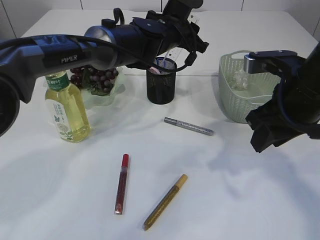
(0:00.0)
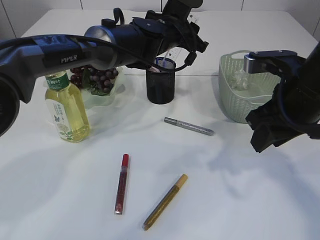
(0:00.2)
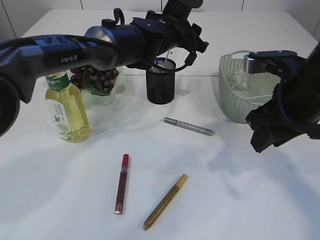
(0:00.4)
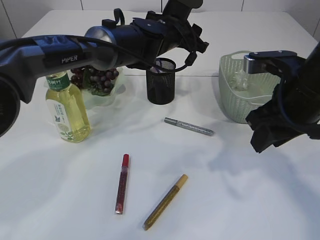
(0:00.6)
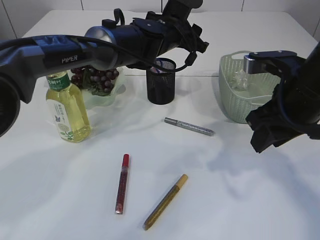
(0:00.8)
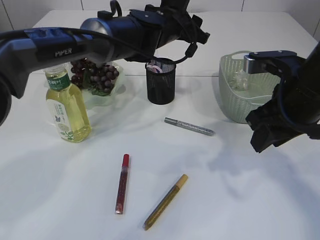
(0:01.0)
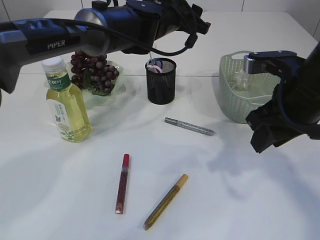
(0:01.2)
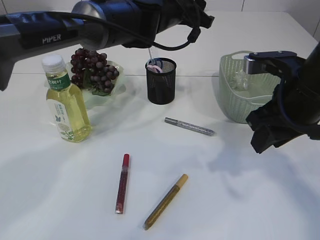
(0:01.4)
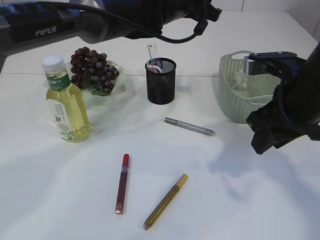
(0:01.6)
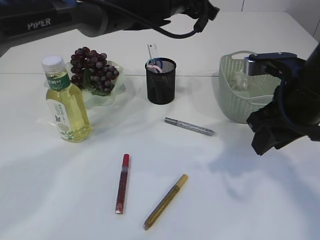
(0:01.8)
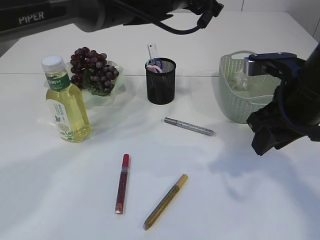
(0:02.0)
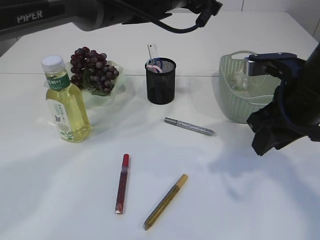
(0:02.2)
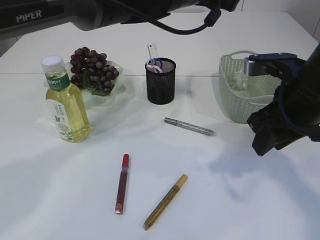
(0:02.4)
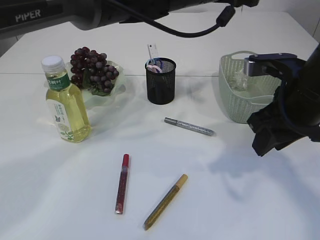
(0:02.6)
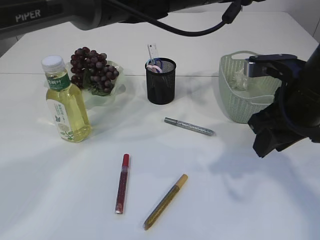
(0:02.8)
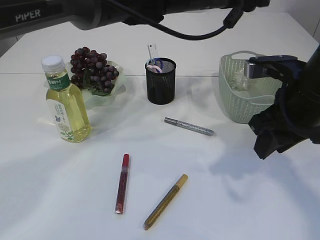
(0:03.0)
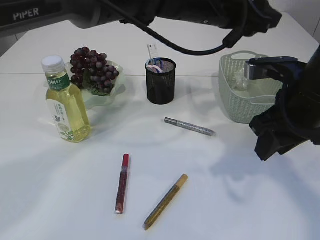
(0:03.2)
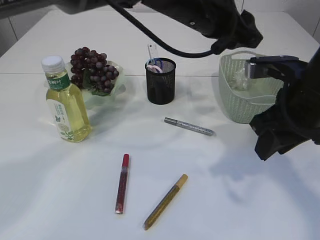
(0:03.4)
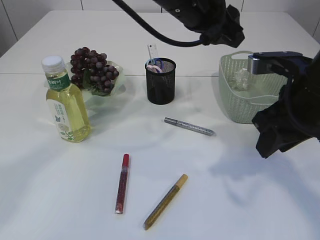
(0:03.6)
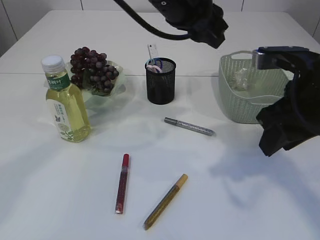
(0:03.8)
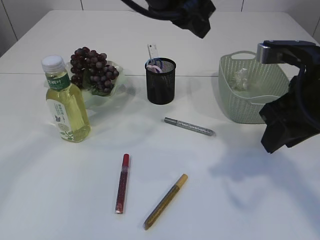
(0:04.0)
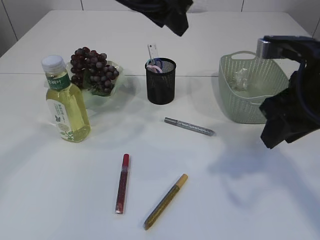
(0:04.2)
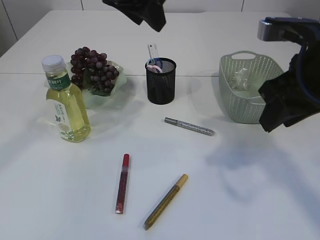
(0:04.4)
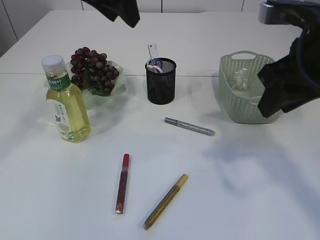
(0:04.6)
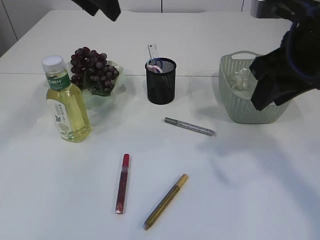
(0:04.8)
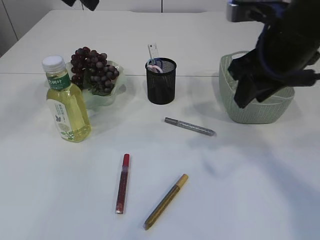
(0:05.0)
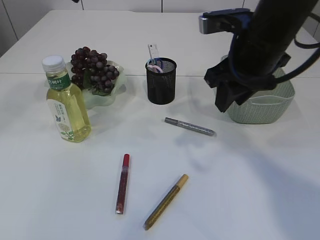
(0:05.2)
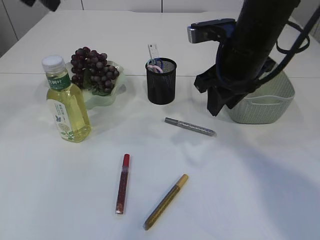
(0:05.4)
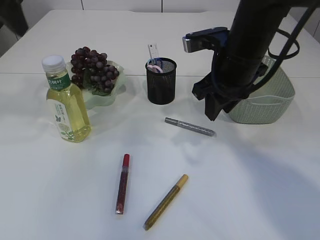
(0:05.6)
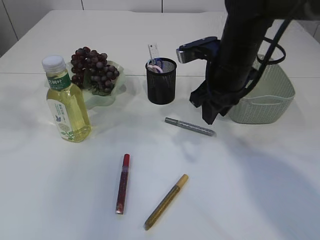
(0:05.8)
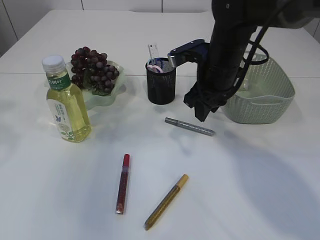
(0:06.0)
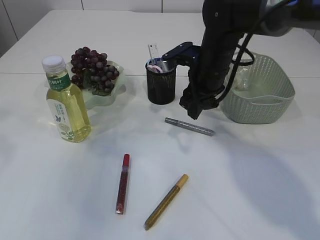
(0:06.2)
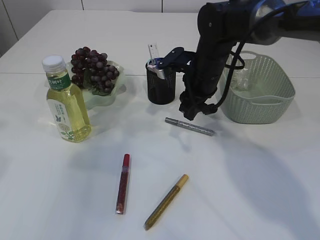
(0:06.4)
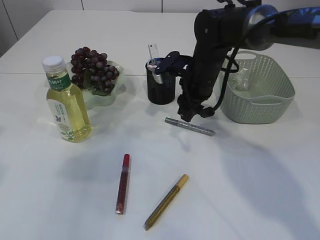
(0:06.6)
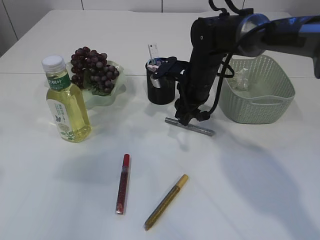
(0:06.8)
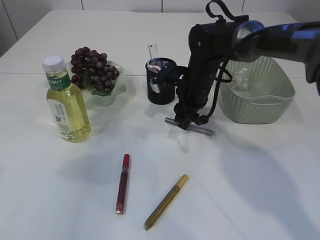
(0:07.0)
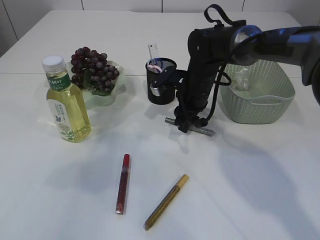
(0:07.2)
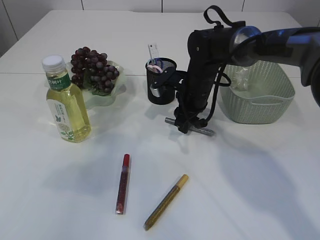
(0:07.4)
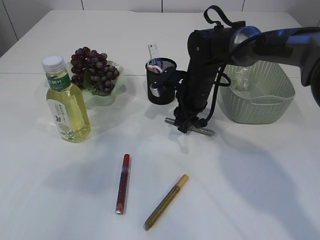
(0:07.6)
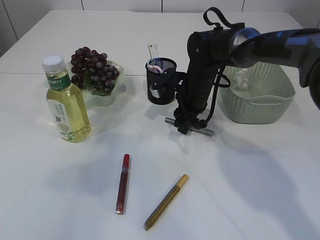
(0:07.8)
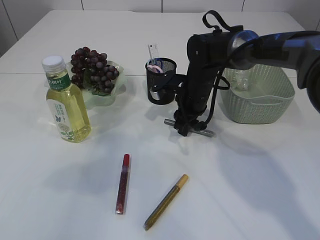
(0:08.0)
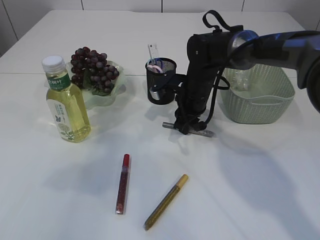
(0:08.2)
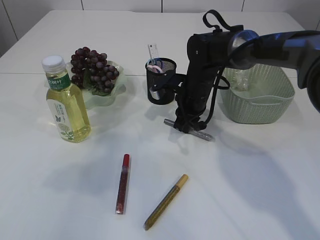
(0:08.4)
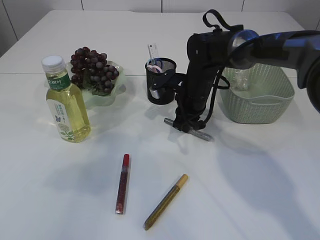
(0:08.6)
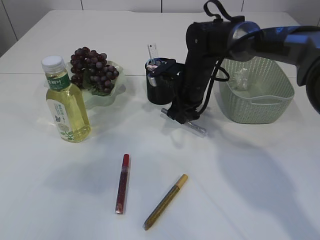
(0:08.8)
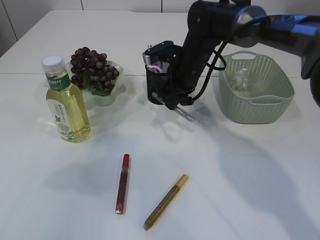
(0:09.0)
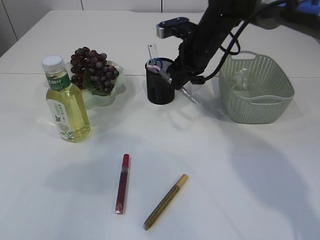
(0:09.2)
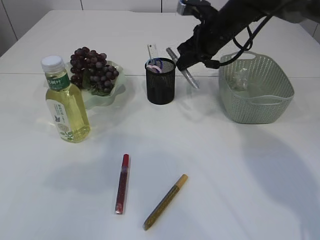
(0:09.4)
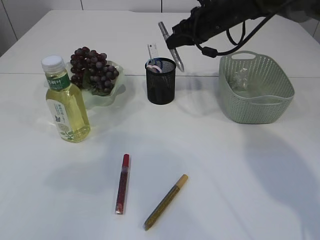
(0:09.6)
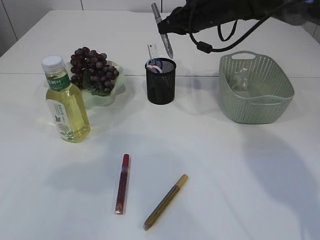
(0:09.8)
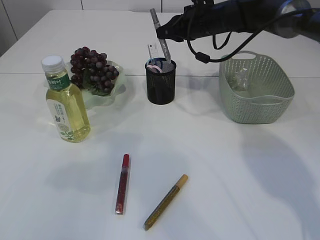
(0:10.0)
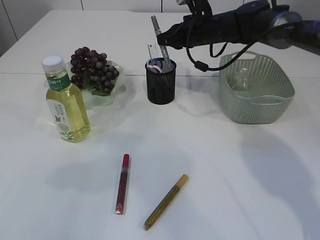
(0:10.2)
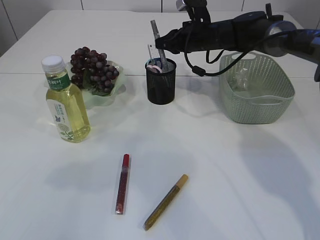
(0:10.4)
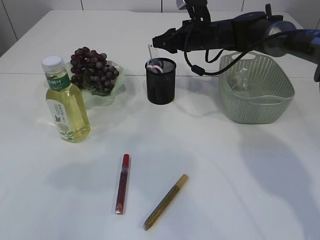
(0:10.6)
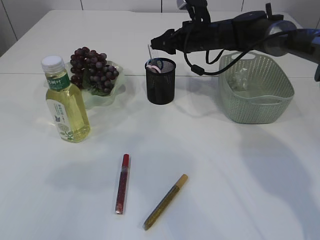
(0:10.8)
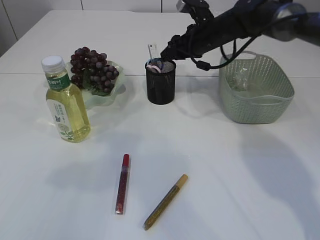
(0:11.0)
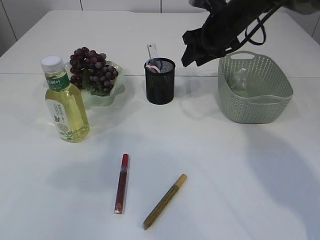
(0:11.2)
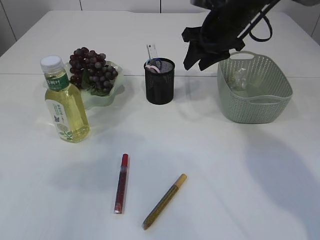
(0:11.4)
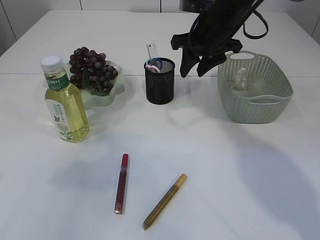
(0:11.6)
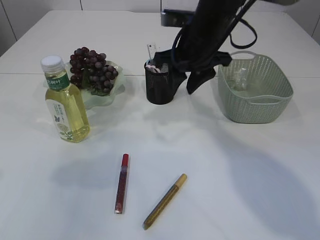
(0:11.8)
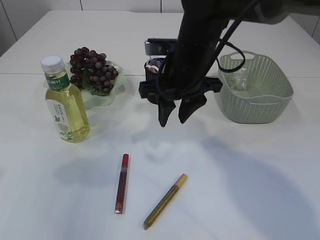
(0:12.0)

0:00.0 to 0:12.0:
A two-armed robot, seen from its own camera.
Step, 0:01.4 to 0:09.0: pick up the silver glue.
Step, 0:09.2 to 0:11.0: place the silver glue into the pen holder.
0:00.0 to 0:01.6: The left gripper shifts approximately 5 cm upward.
0:01.6 to 0:03.0: The left gripper heads backward, covering some 5 cm.
0:03.0 to 0:04.4: The left gripper travels to the left and upward by approximately 15 cm.
0:04.4 to 0:06.0: The left gripper moves to the left, roughly 25 cm. The right gripper moves forward, to the left and downward, approximately 20 cm.
0:06.0 to 0:07.6: The right gripper is displaced downward and forward by about 10 cm. Meanwhile the left gripper goes approximately 10 cm backward and downward.
0:07.6 to 0:09.0: The right gripper closes.
0:09.0 to 0:10.4: The right gripper is displaced forward by some 10 cm, and reaches some 10 cm upward, then returns.
0:10.4 to 0:12.0: The right gripper goes about 15 cm backward, and opens its fingers.

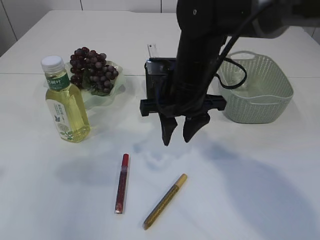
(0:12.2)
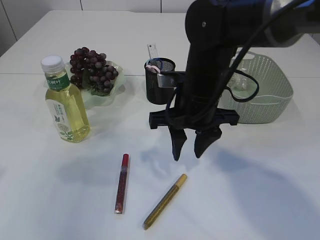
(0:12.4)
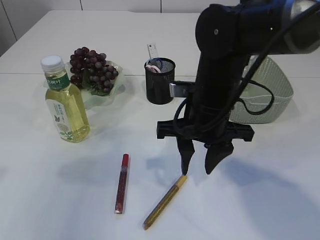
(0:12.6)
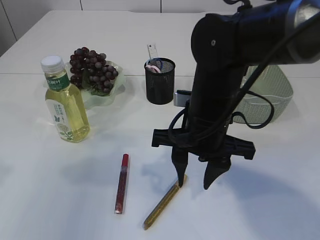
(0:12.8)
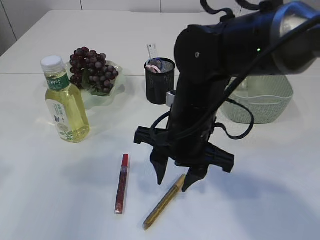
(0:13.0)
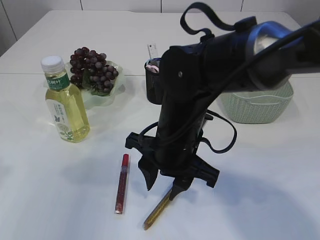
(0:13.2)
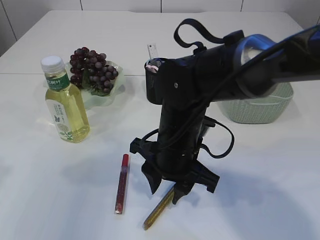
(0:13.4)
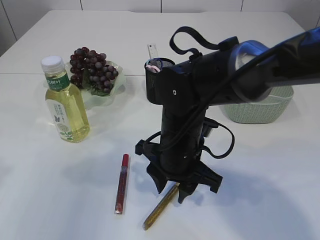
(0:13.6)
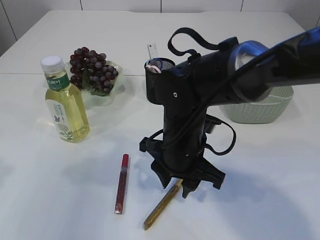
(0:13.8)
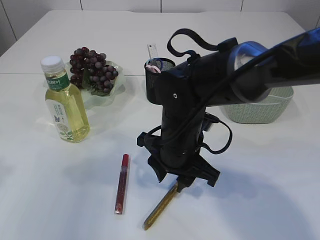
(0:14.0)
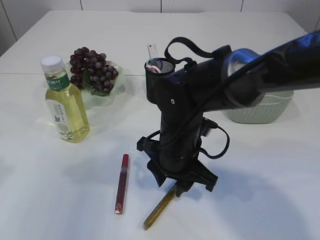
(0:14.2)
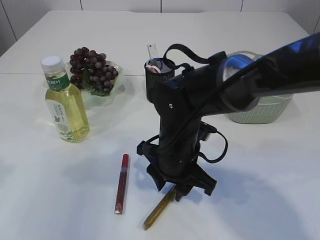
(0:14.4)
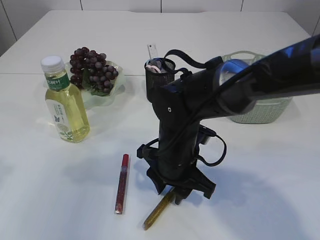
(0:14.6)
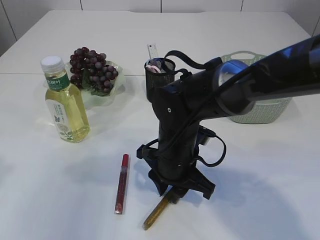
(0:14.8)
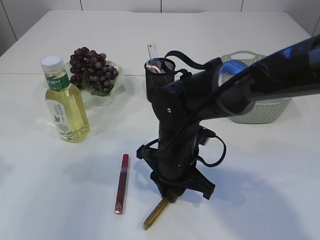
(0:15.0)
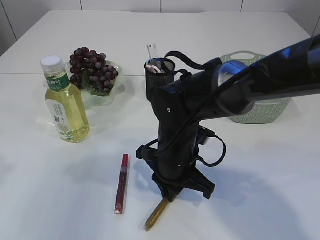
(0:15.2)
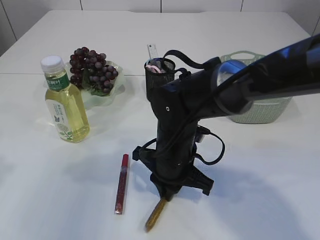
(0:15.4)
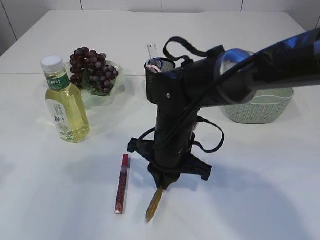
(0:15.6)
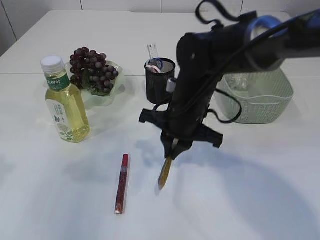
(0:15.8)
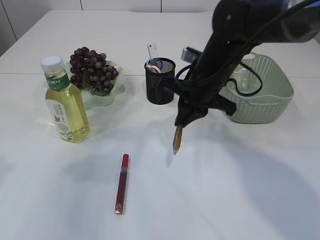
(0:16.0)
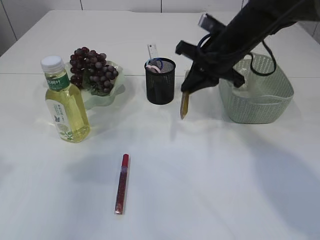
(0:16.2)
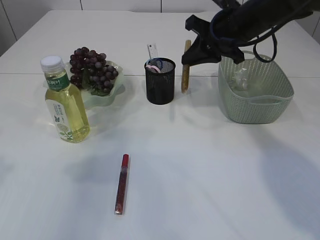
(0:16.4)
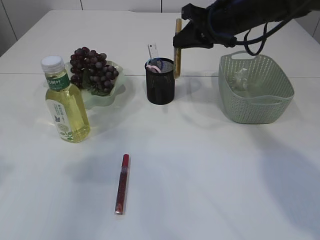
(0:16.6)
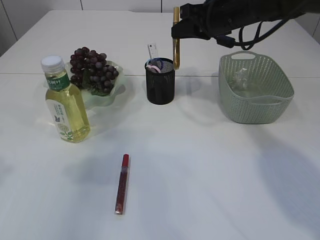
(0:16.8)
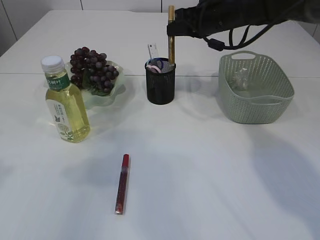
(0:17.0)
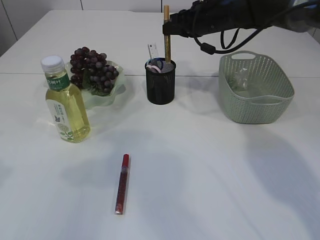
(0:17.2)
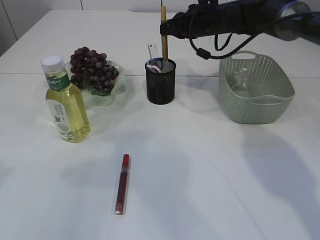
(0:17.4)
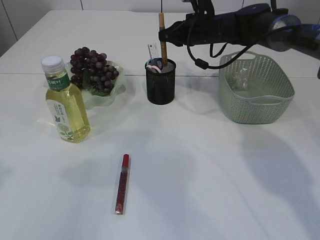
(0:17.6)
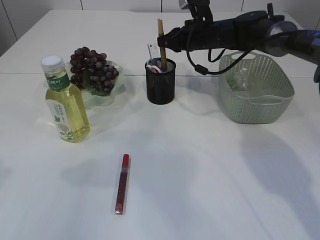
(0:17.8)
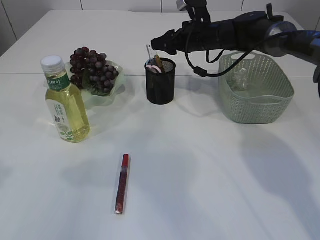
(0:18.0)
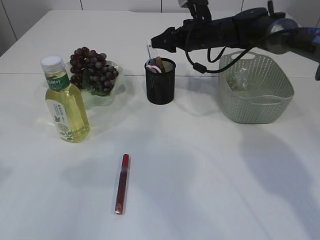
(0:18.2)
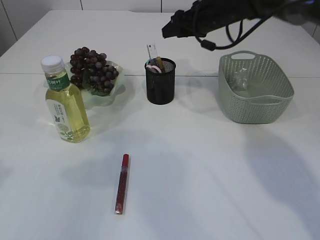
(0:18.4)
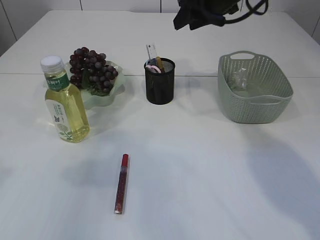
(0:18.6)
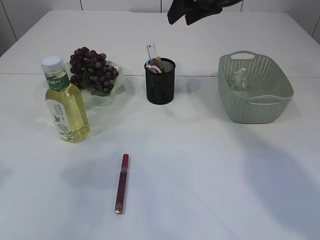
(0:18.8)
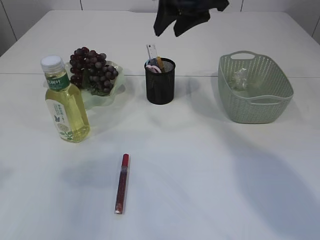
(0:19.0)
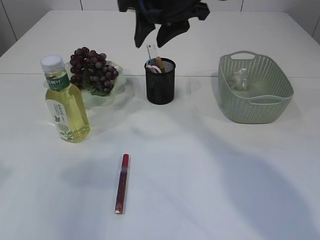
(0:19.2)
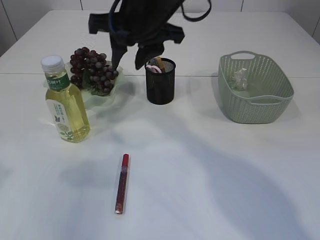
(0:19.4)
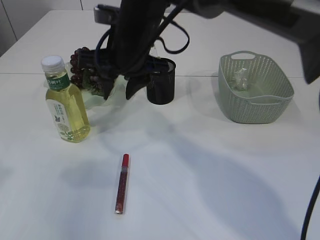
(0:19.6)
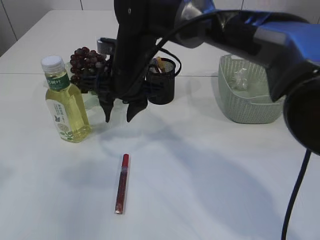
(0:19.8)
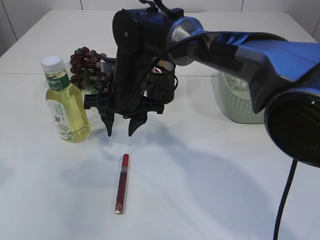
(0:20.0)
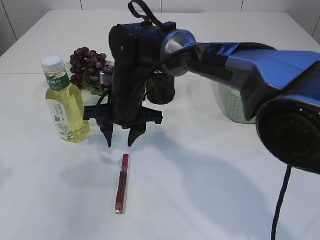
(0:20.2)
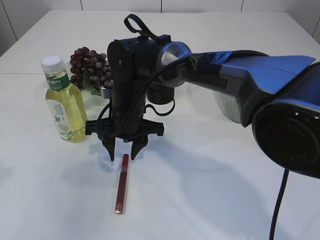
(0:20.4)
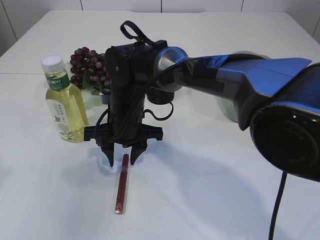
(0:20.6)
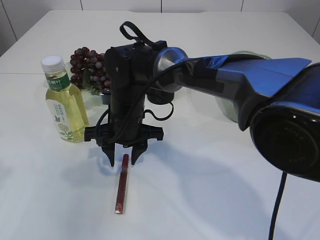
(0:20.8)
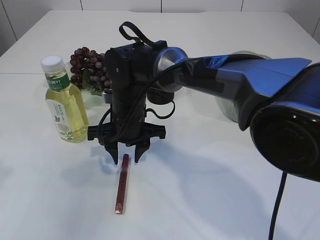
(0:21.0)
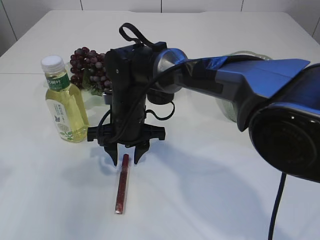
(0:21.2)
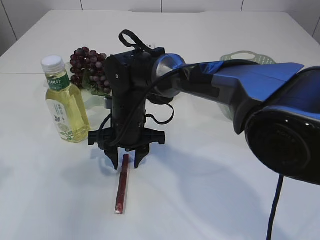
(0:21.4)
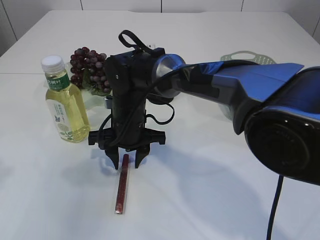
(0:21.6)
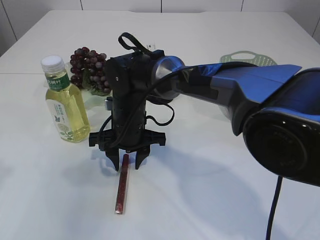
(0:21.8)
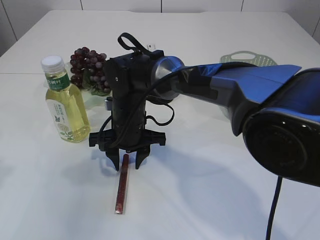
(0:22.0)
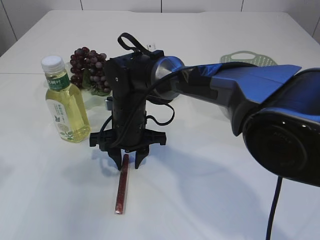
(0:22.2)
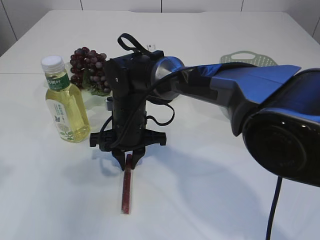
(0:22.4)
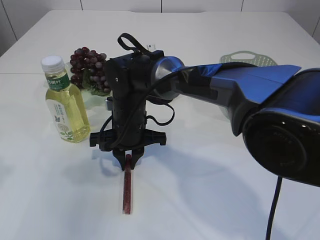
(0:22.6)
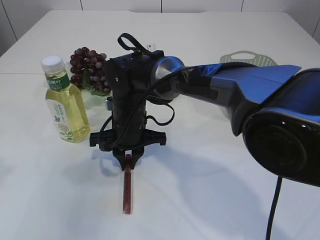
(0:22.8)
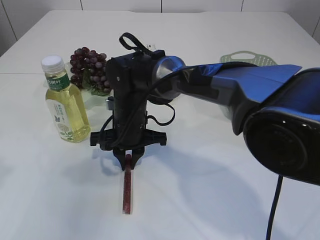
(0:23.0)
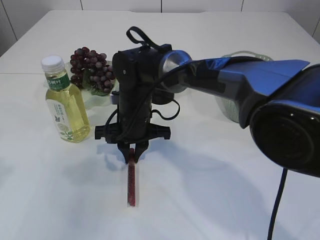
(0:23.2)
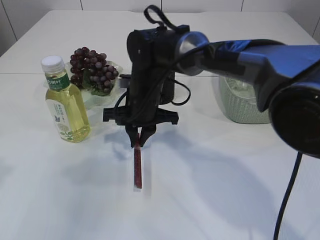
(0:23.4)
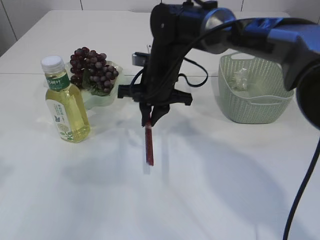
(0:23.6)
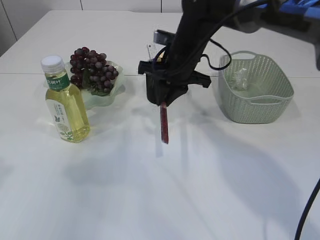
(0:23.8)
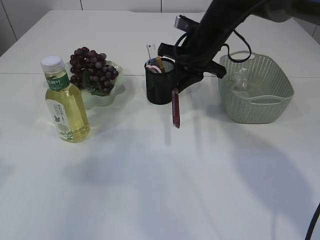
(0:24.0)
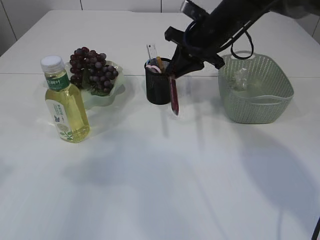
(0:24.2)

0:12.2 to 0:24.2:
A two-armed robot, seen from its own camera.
Step, 0:12.2 to 0:15.8: pick up the yellow glue.
Step, 0:16.0 to 0:18.0: place the yellow glue into the pen holder.
Step, 0:18.2 to 0:23.8: pick up the red glue.
0:12.2 to 0:13.8: The right gripper travels downward and backward by some 10 cm.
0:13.8 to 0:15.2: The right gripper closes.
0:15.2 to 0:16.6: The right gripper moves upward, forward and to the right, roughly 25 cm.
0:16.6 to 0:18.2: The right gripper goes roughly 10 cm forward and downward, and opens up.
0:18.2 to 0:19.8: The right gripper heads to the left and backward, covering roughly 20 cm.
0:19.8 to 0:21.2: The right gripper goes roughly 10 cm downward.
0:21.2 to 0:22.6: The right gripper closes up.
0:22.6 to 0:24.2: The right gripper goes roughly 25 cm to the right, upward and forward.
